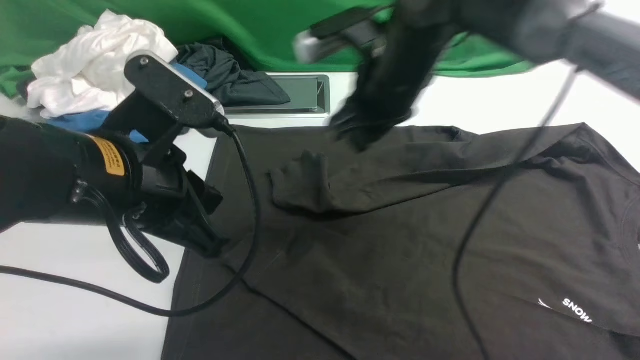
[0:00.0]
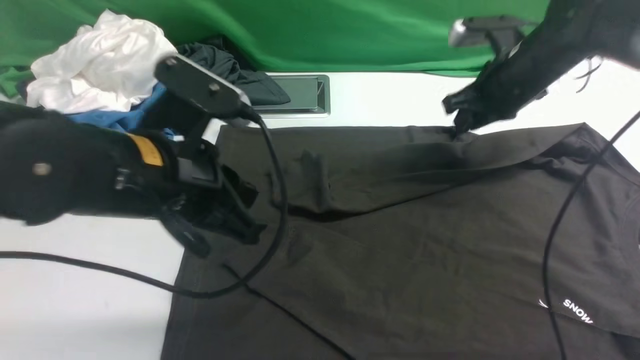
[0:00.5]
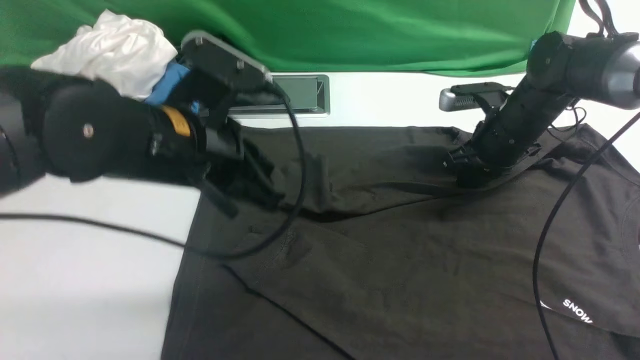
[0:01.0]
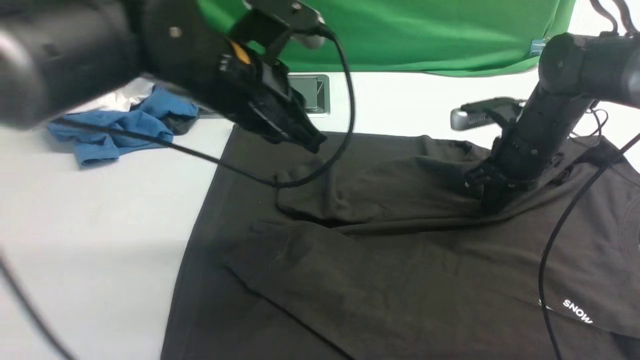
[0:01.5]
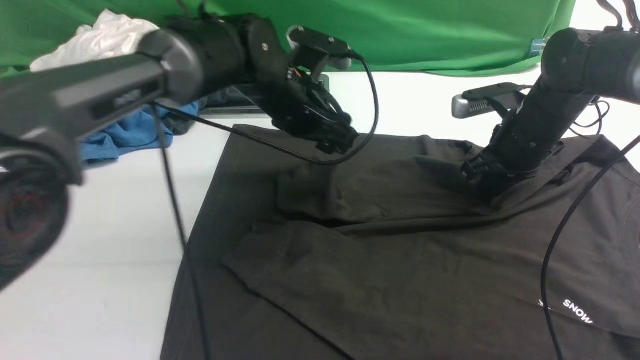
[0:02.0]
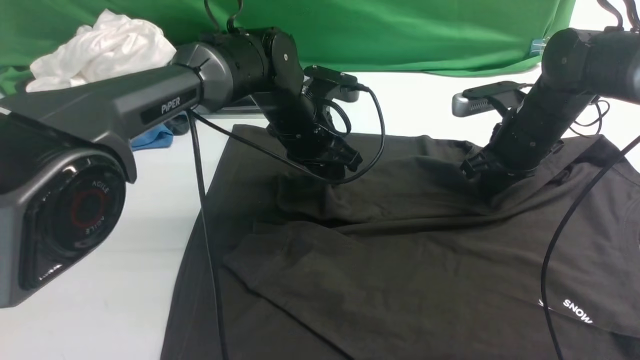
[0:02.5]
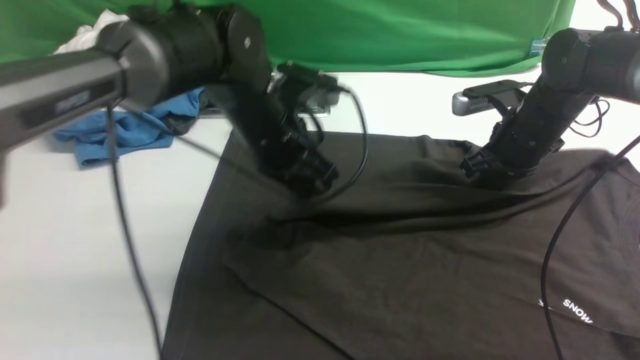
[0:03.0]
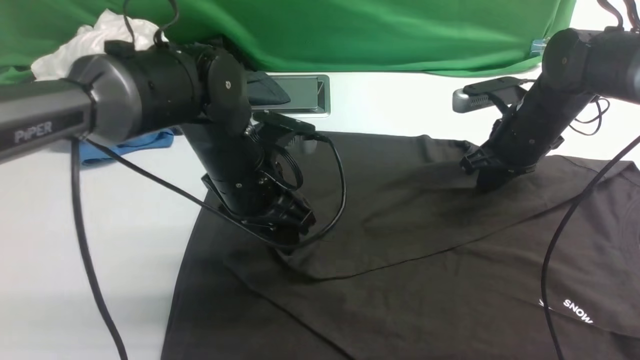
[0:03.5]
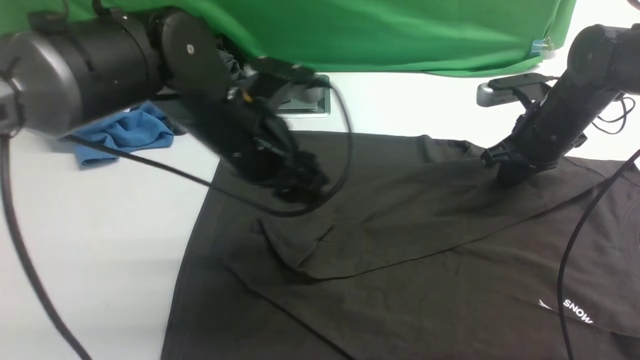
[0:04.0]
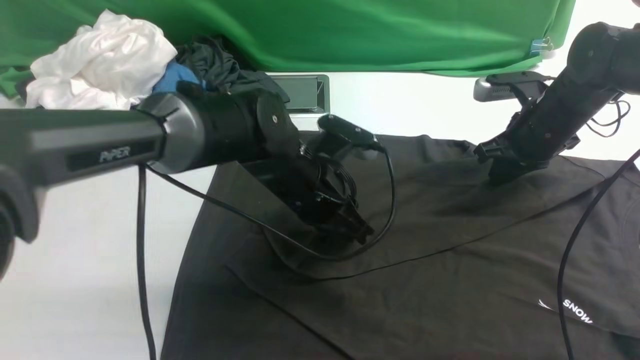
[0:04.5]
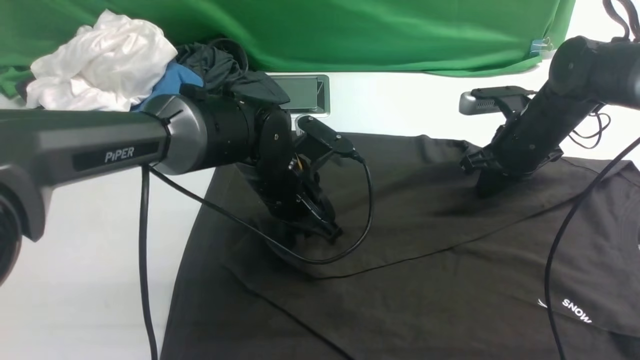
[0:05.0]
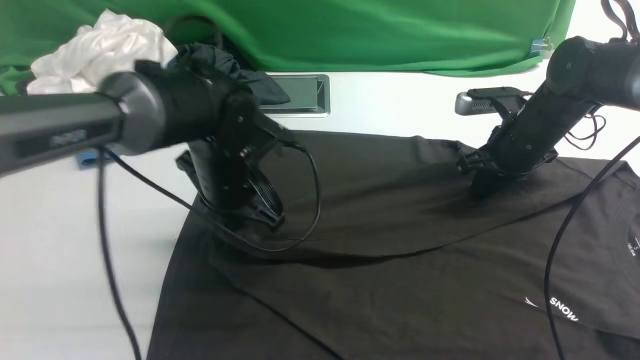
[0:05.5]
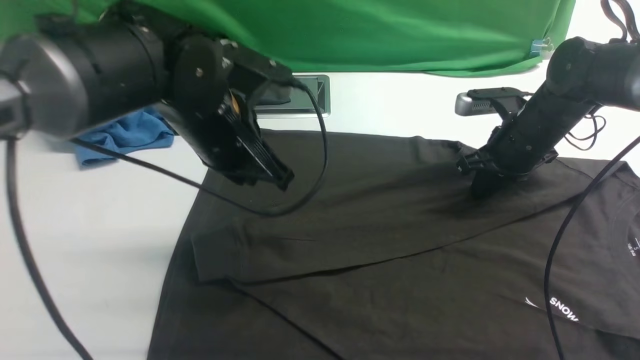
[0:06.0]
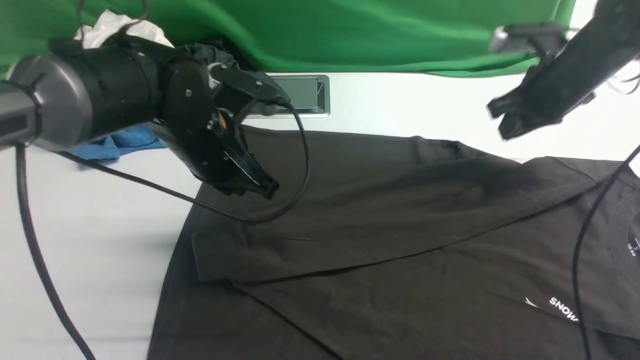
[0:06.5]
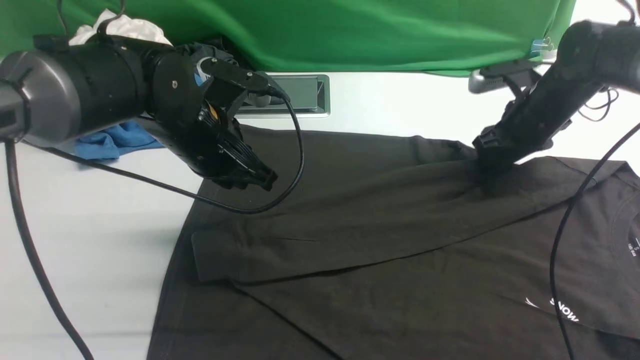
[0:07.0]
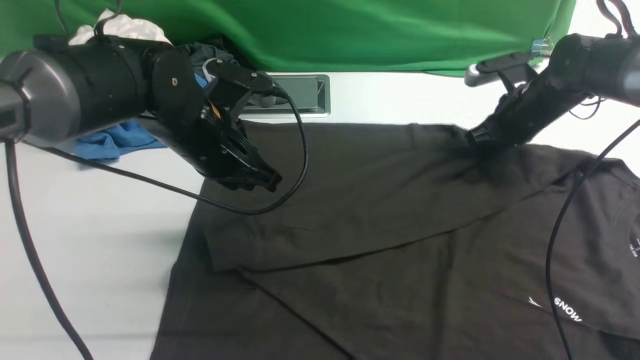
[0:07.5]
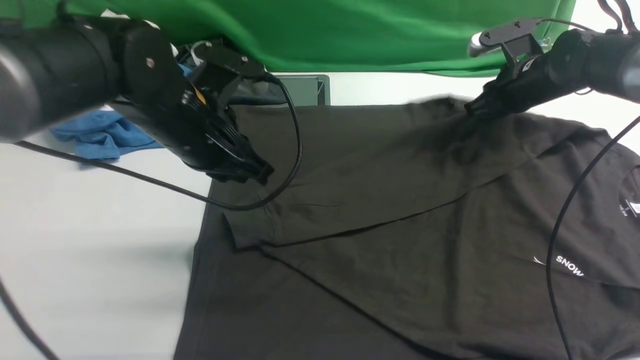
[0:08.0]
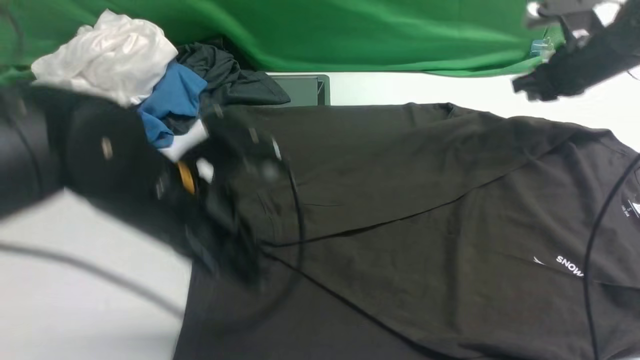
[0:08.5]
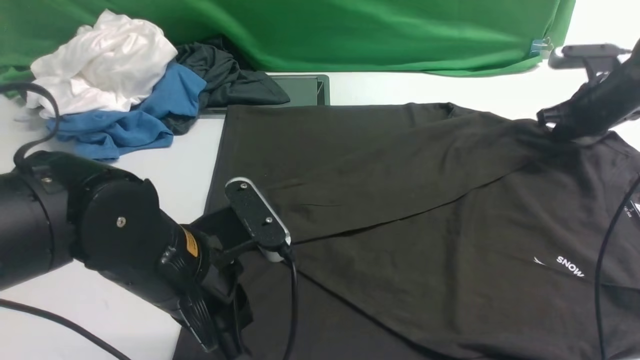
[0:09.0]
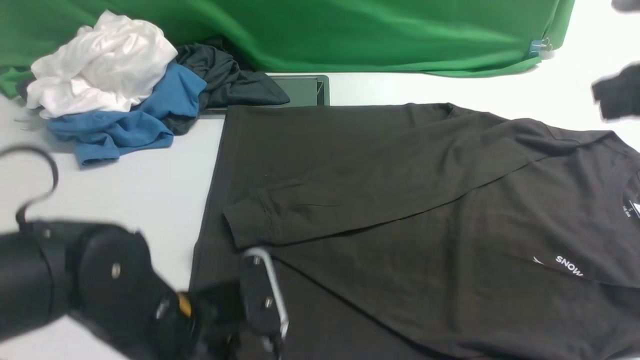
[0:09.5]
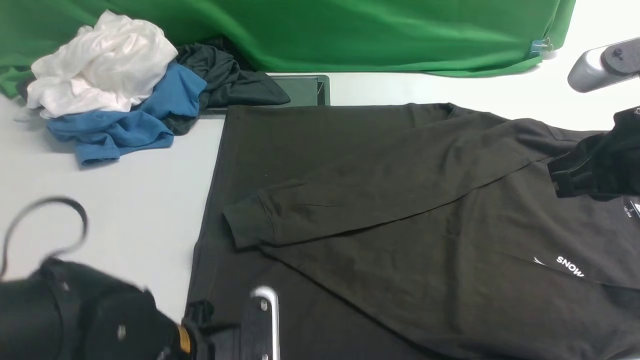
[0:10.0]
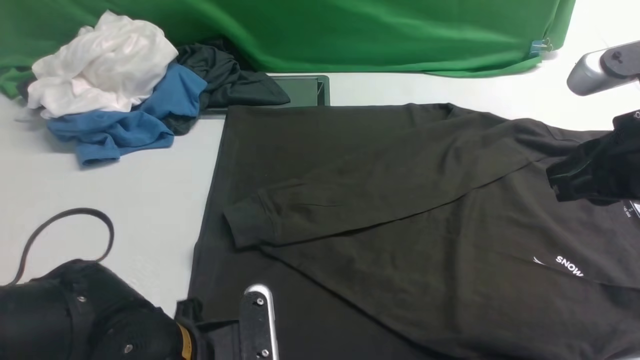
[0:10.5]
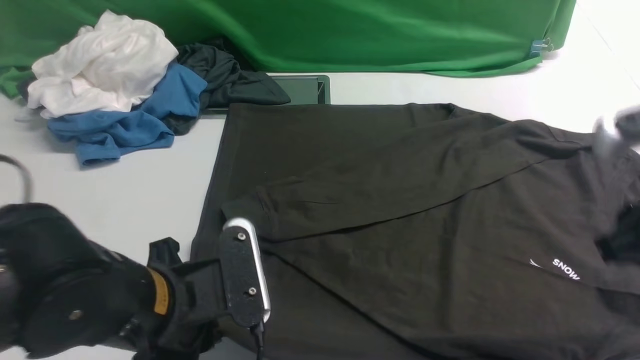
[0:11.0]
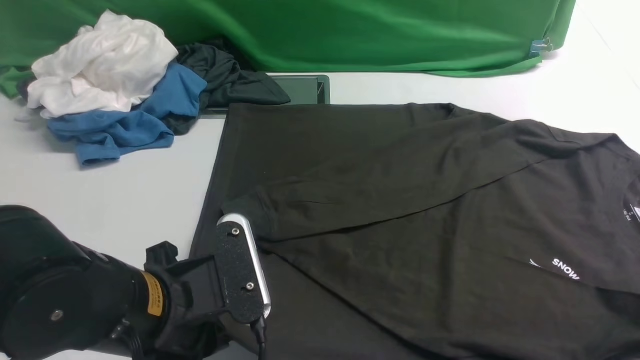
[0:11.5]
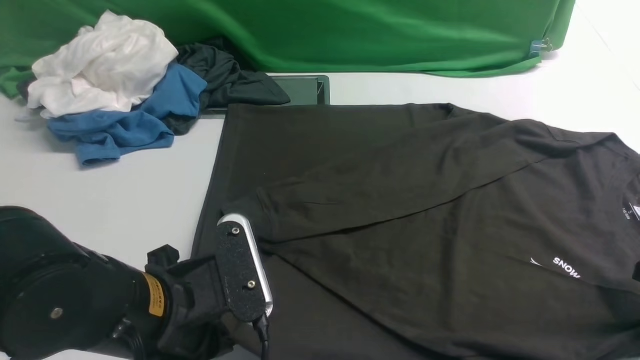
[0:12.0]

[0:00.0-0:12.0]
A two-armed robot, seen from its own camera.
Step, 0:00.0 to 0:02.5: use the left arm to clamp the cuff farthest from it.
Step, 0:03.0 to 0:05.5: use the left arm to drag and drop the cuff onto the cuff closest to the left arm.
0:00.0 to 0:02.0: The right gripper goes about 15 cm to the right and downward, while the left gripper heads forward, to the right and downward, covering some 25 cm, and opens up.
0:02.0 to 0:04.0: The left gripper goes about 10 cm backward, and closes, then reopens.
0:04.0 to 0:06.0: The left gripper travels downward and back again, roughly 10 cm each way, and closes its fingers.
0:06.0 to 0:08.0: The right gripper travels forward by roughly 5 cm, and opens.
0:08.0 to 0:10.0: The right gripper moves backward and upward, some 30 cm; the left gripper moves backward and downward, approximately 20 cm, and opens its fingers.
0:10.0 to 0:12.0: The left gripper travels upward by about 10 cm, and closes its fingers; the right gripper shifts approximately 20 cm downward and to the right, and opens, then closes once more.

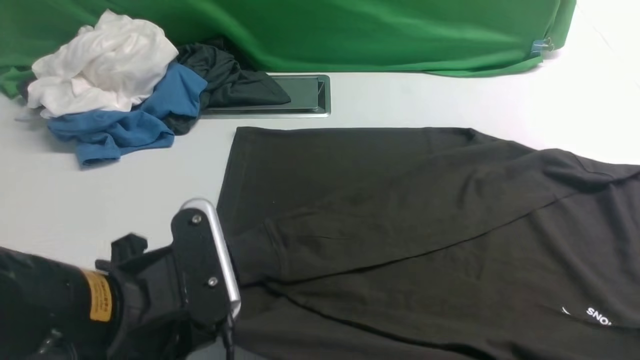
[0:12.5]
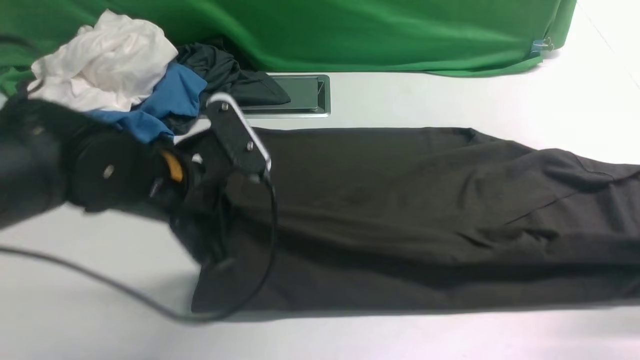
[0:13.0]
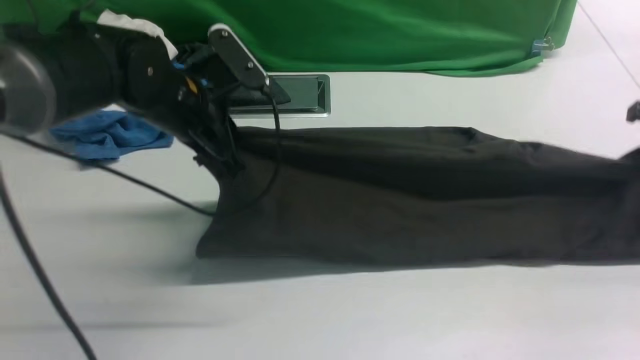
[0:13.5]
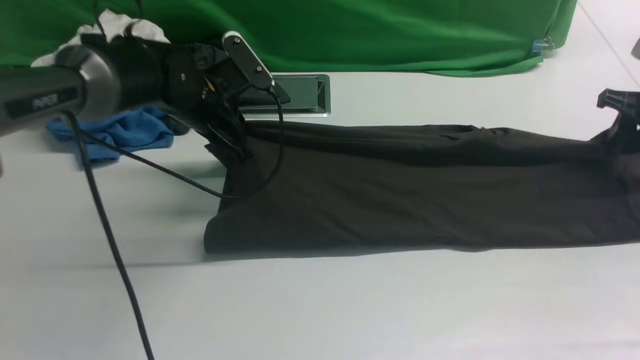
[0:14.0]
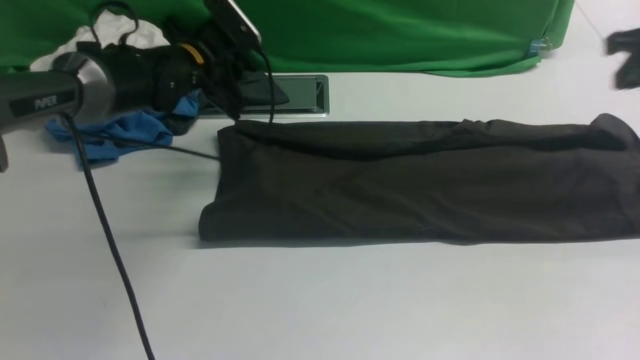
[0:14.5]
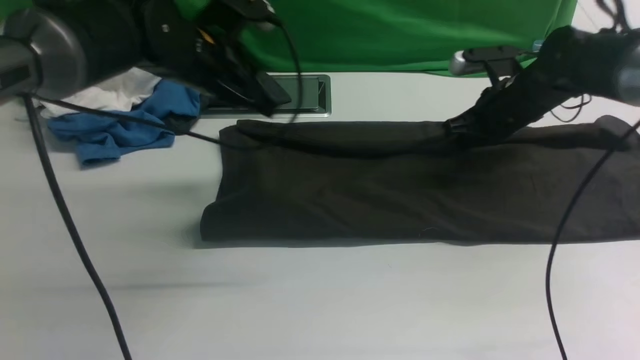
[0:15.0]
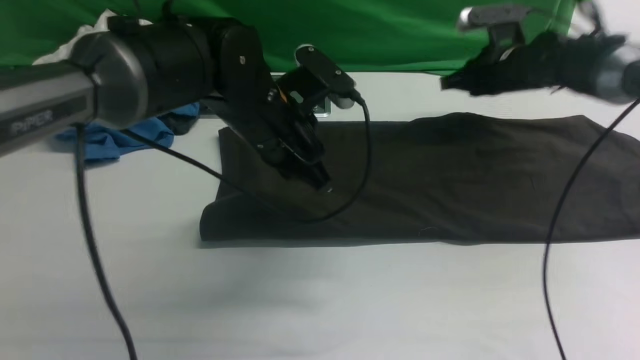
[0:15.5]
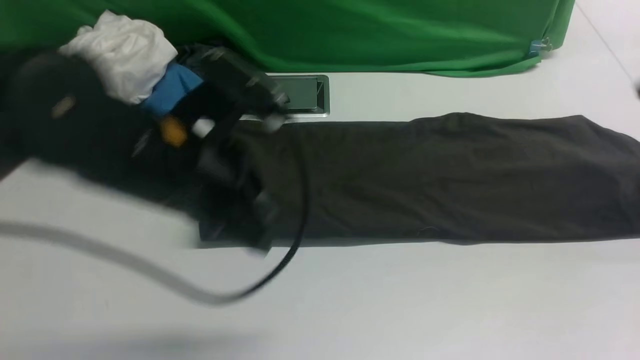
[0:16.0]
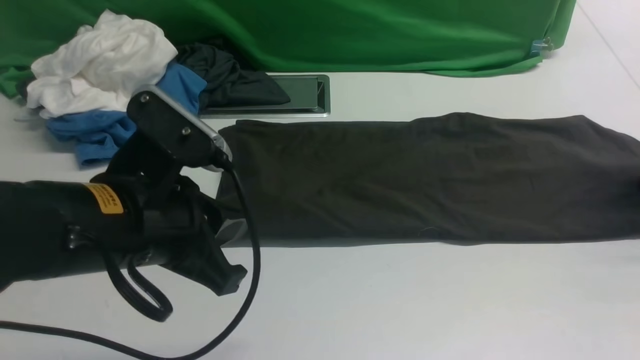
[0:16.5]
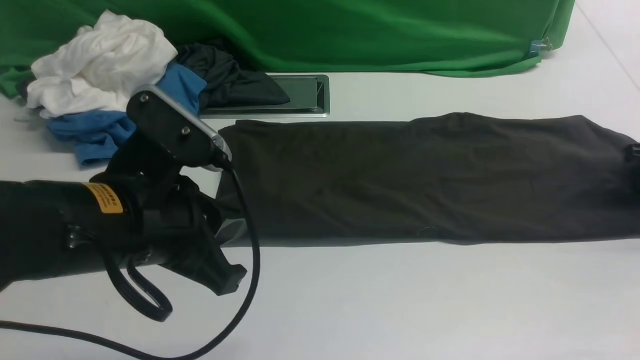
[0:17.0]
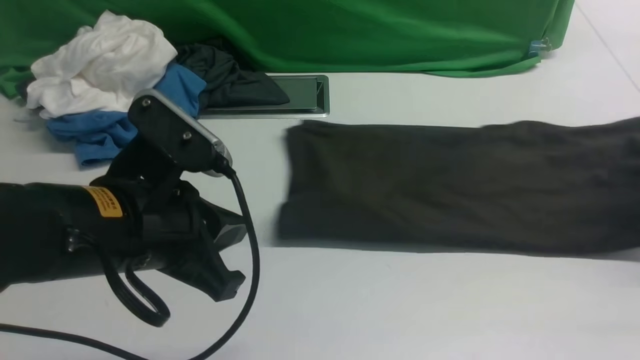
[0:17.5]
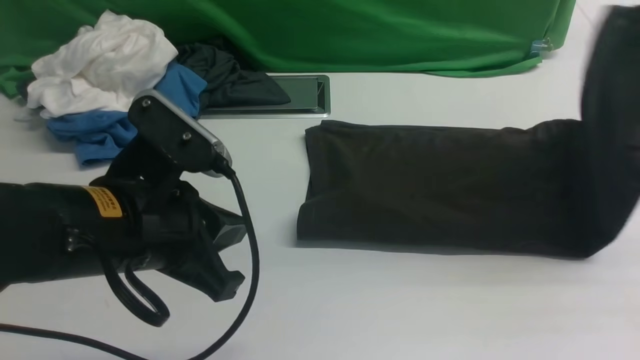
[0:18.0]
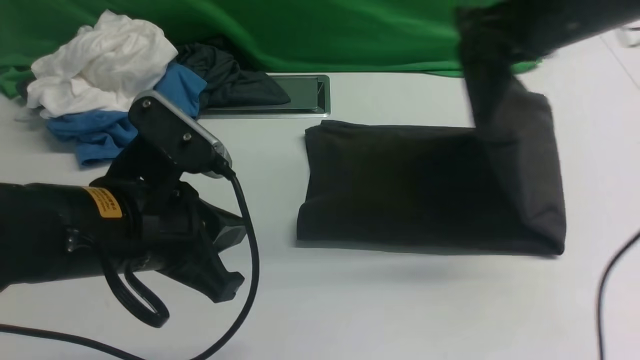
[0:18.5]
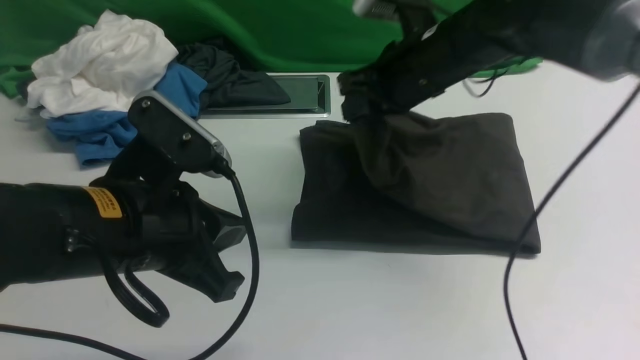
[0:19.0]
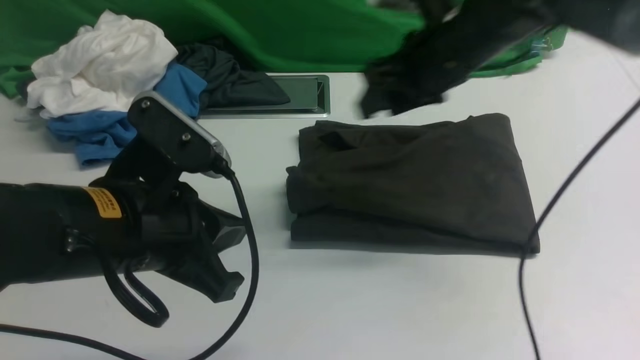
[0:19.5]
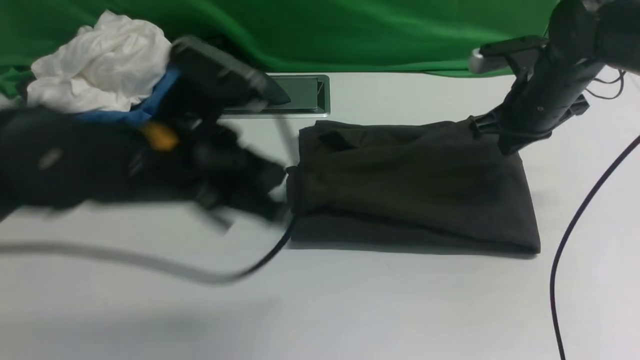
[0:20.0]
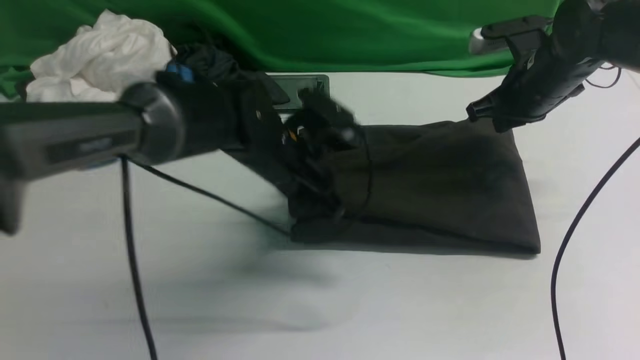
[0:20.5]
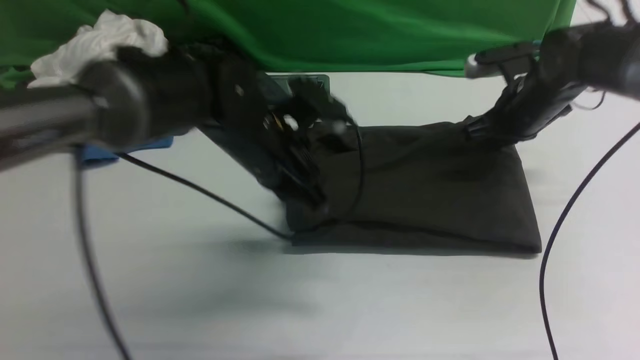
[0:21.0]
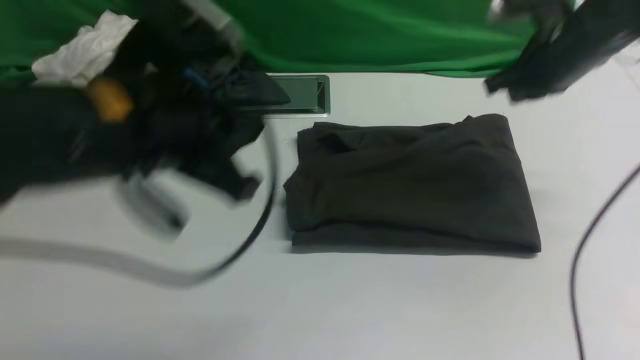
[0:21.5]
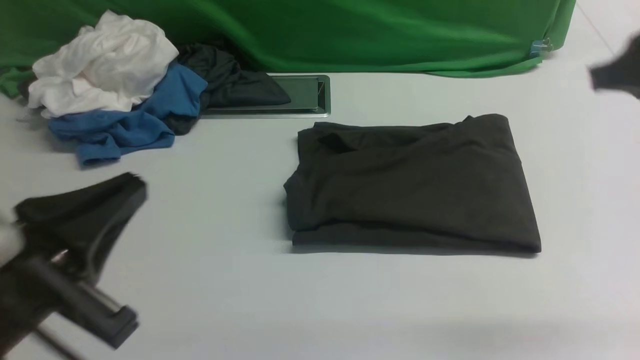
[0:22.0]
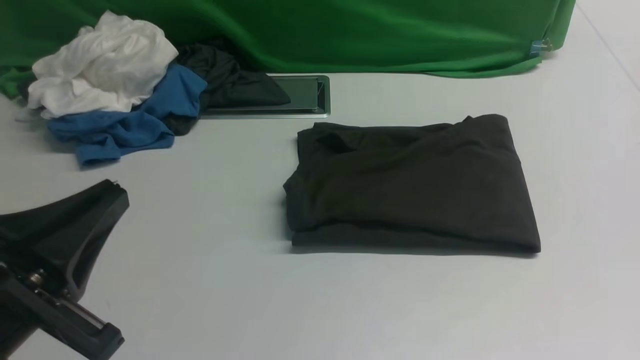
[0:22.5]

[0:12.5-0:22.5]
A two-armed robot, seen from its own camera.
Step, 0:13.0 to 0:14.5: use both arms to drag the lower edge of the fabric forward and fold it over the upper edge.
Step, 0:15.0 to 0:17.0: use the right arm to clamp the right edge of the fabric.
Step, 0:17.5 to 0:19.5: use the right arm to drag the right edge of the fabric to the left and folds it over the left edge.
0:12.5 to 0:14.5: Both grippers travel together forward, about 30 cm. The left gripper opens its fingers; the right gripper opens, then closes again.
0:14.5 to 0:16.5: The left gripper goes some 25 cm backward, and closes up. Meanwhile the right gripper is displaced to the right and downward by some 15 cm, and opens its fingers.
0:16.5 to 0:18.5: The right gripper moves to the left and upward, roughly 30 cm, and closes.
0:18.5 to 0:20.5: The right gripper goes some 15 cm downward and forward, and opens and closes again. The left gripper travels forward, downward and to the right by approximately 20 cm.
0:20.5 to 0:22.5: The right gripper travels backward by approximately 35 cm, while the left gripper moves backward and to the left, approximately 30 cm.
